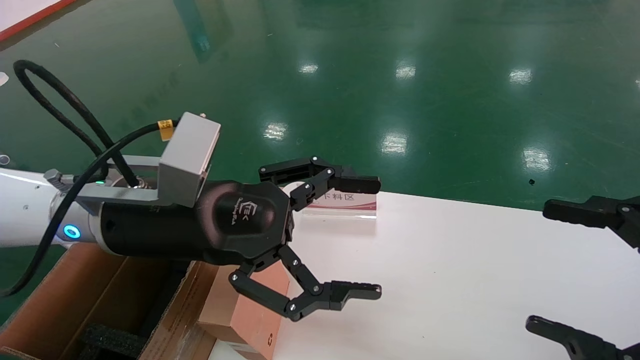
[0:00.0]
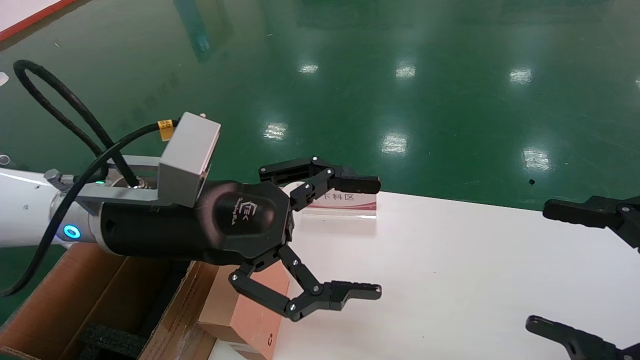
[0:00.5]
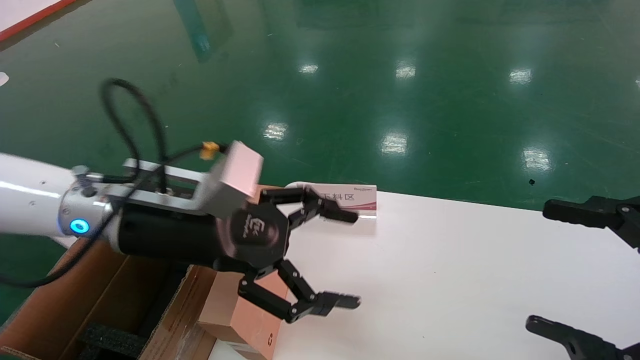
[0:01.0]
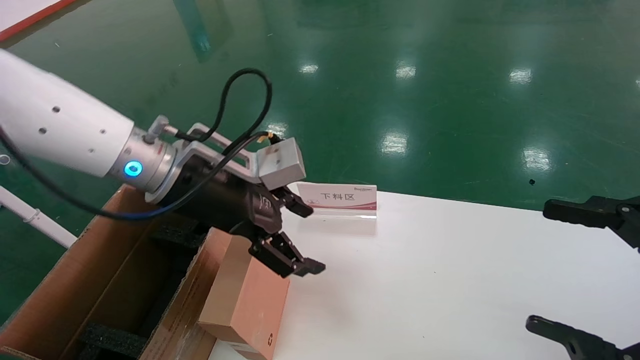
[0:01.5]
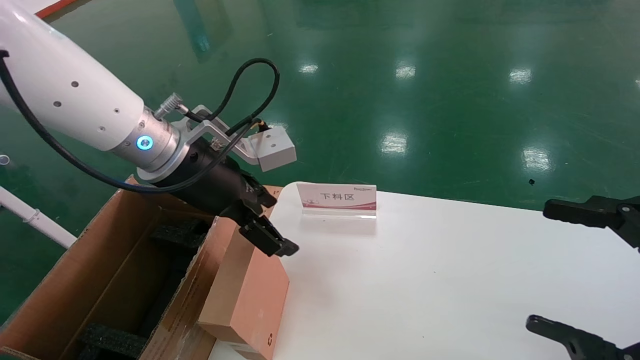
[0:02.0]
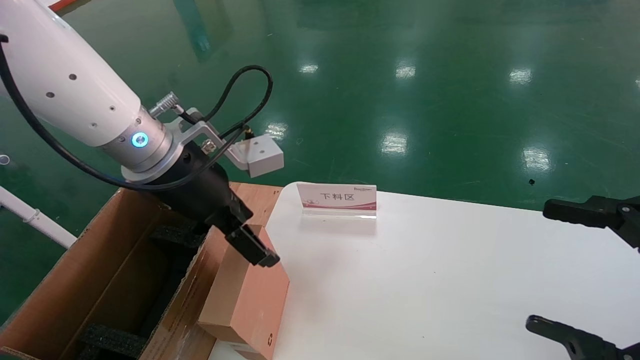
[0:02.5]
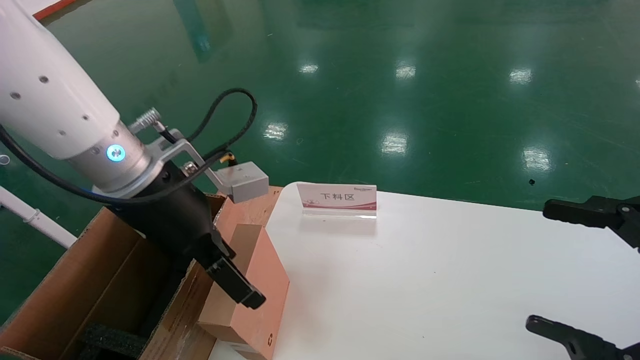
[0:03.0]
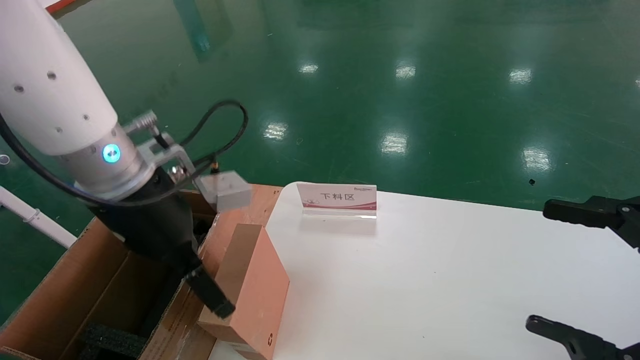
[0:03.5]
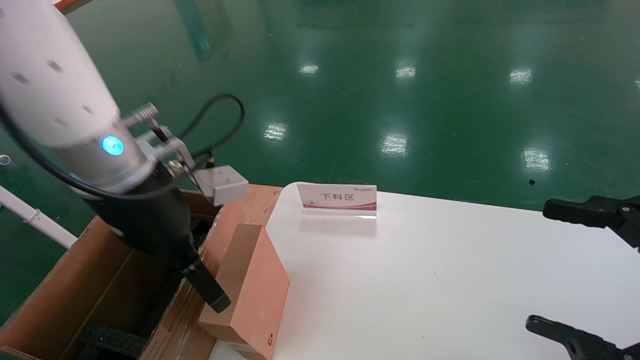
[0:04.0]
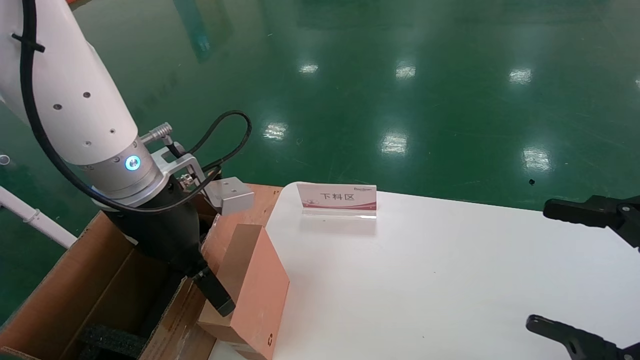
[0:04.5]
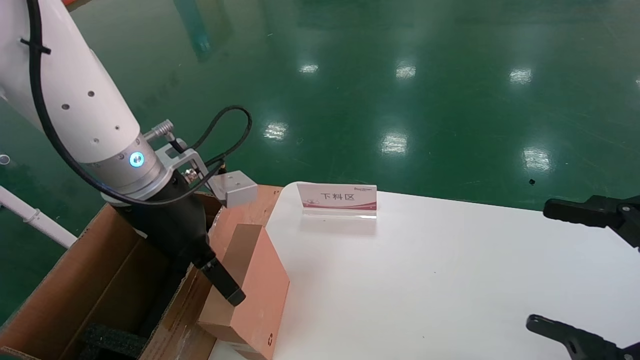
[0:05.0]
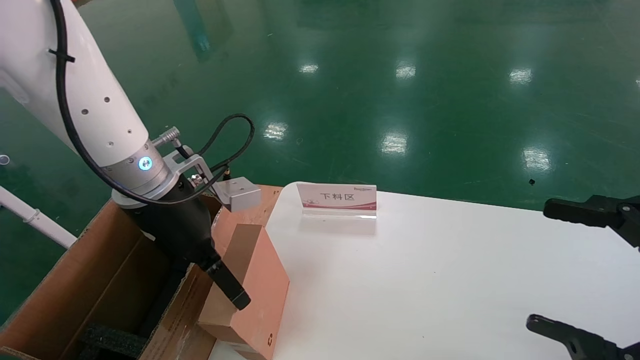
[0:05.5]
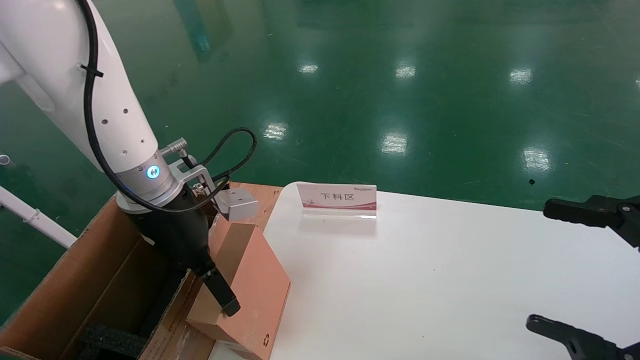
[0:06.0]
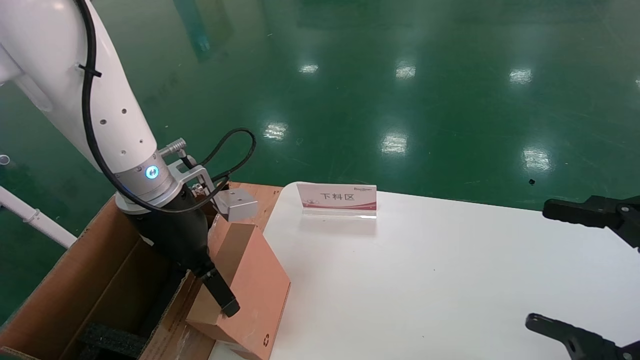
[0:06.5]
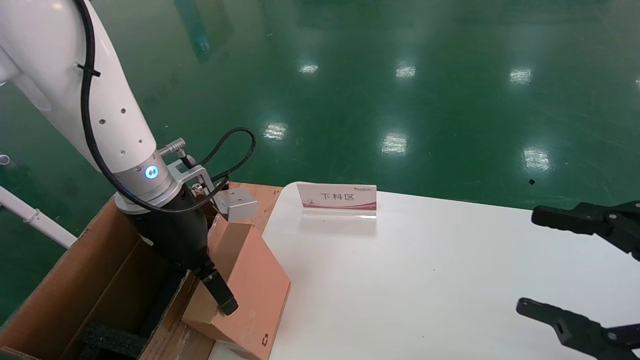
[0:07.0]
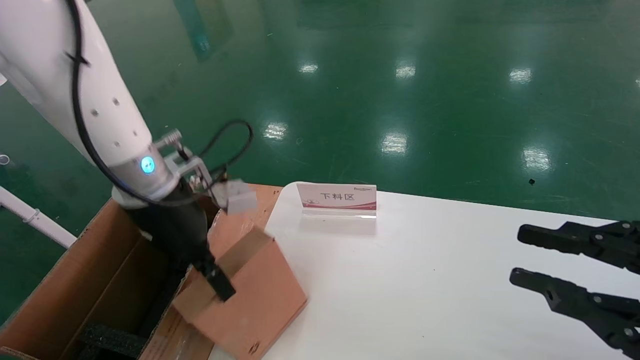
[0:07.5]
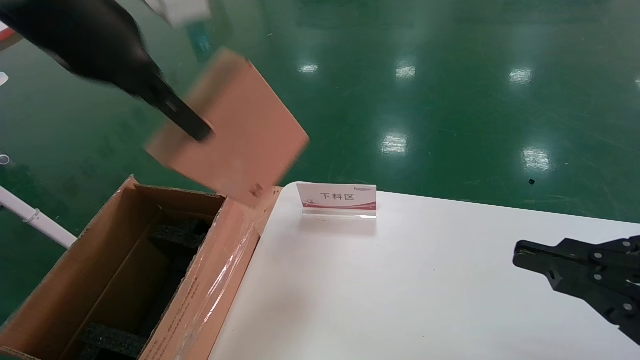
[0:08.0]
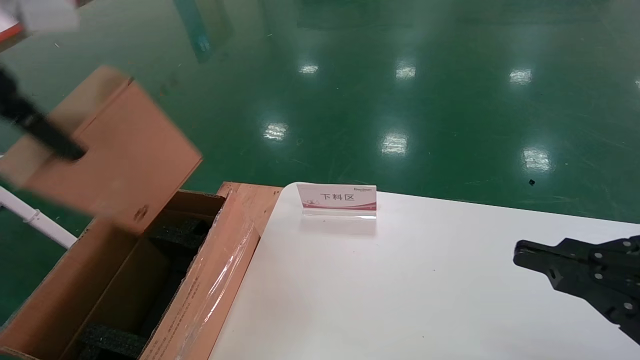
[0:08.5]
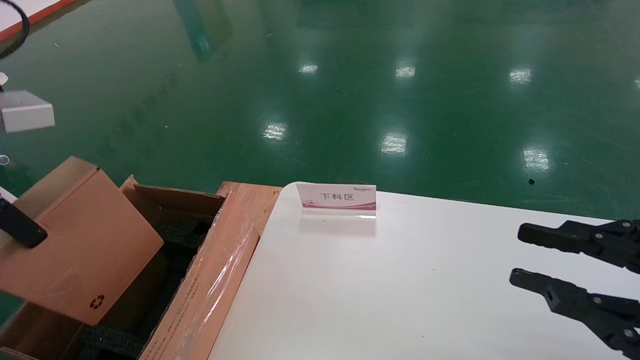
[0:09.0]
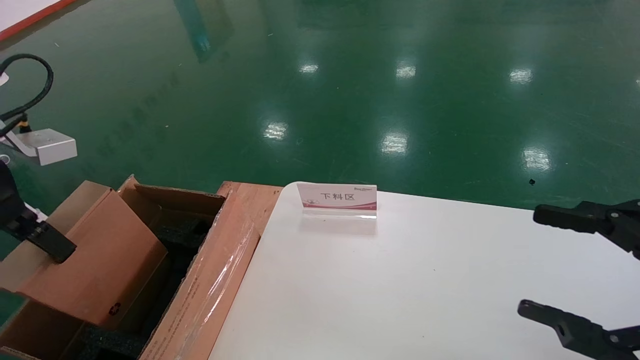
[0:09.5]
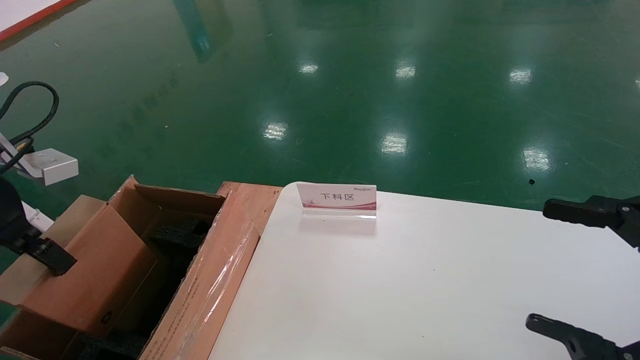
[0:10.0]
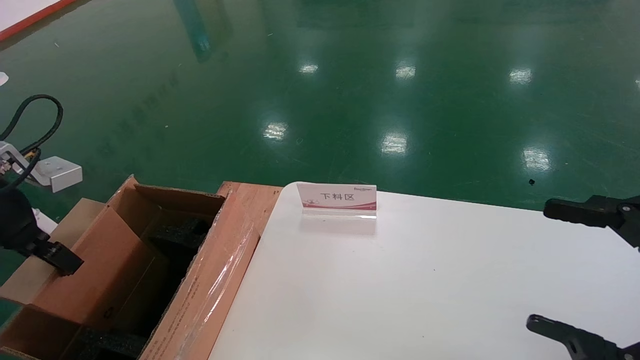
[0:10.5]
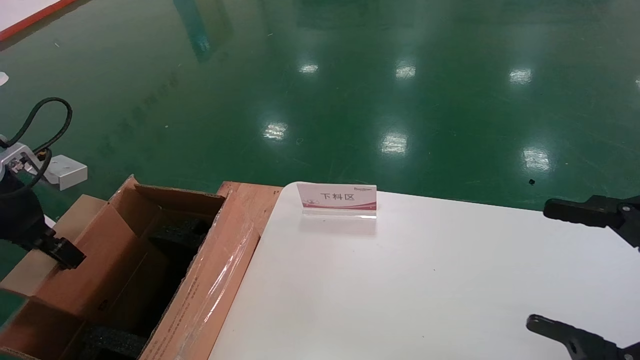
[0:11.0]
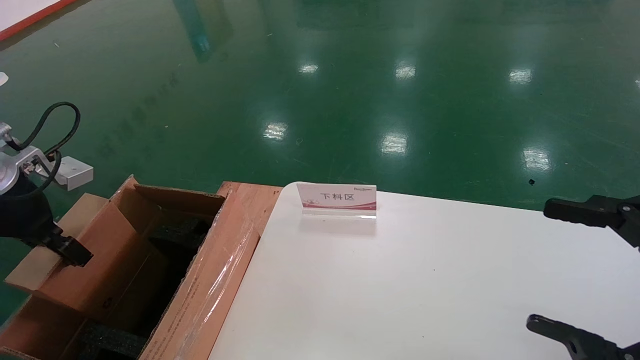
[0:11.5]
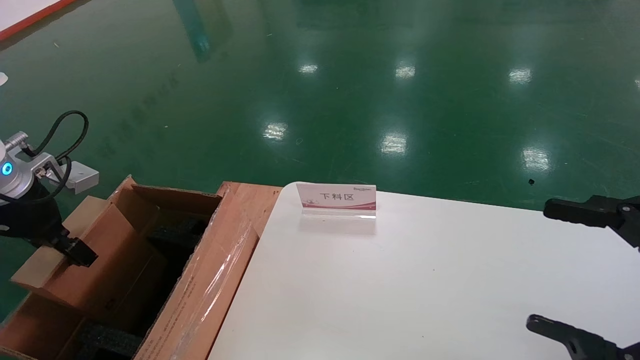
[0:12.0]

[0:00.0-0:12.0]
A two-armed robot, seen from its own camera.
Task of the whole recording: pick up the small cardboard box and load it into the large cardboard box.
Step, 0:01.0 to 0:07.5: Pick up the mouse and power cord box.
0:00.0 to 0:02.0: The left gripper moves forward, about 5 cm.
0:04.0 to 0:06.0: The left gripper ends up approximately 5 cm from where it was.
0:06.0 to 0:08.0: The right gripper closes up, while the left gripper moves upward, approximately 20 cm, and closes up.
0:08.0 to 0:10.0: The left gripper moves to the left and downward, about 20 cm, while the right gripper opens.
0:10.0 to 0:12.0: The left gripper moves forward and downward, approximately 10 cm.

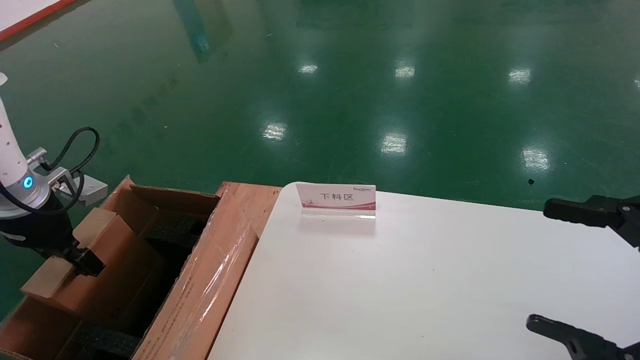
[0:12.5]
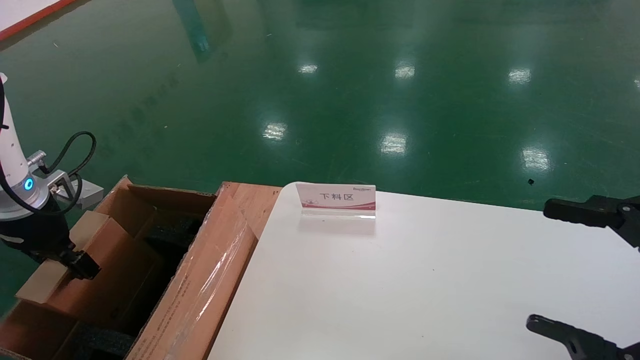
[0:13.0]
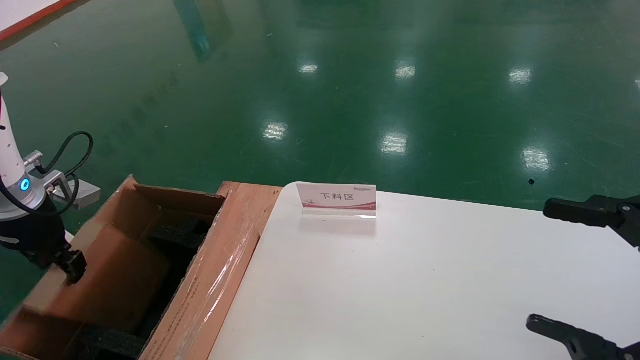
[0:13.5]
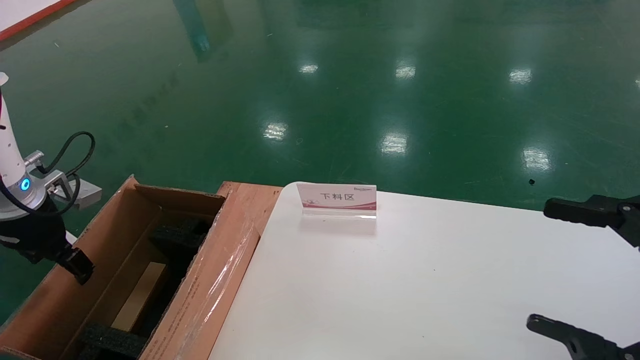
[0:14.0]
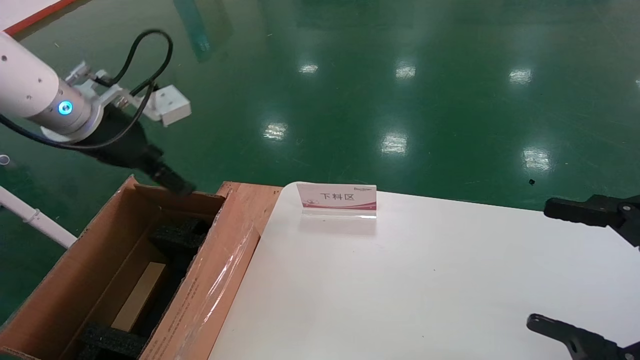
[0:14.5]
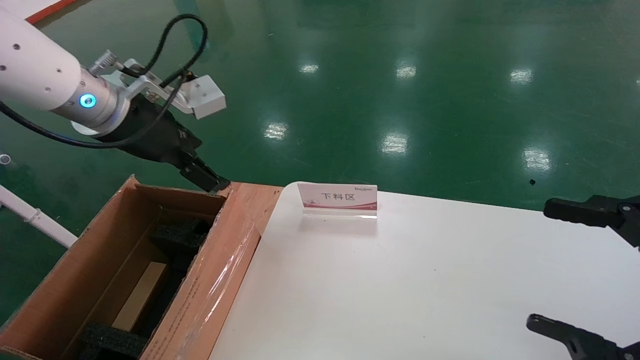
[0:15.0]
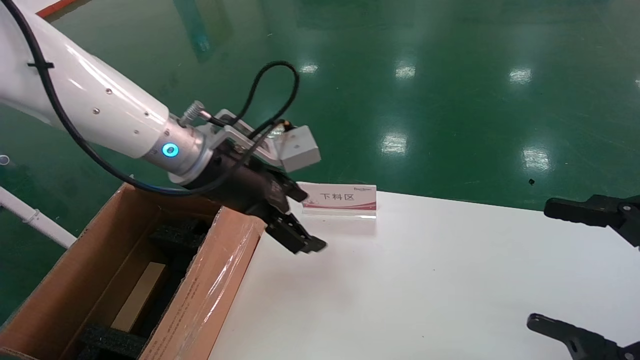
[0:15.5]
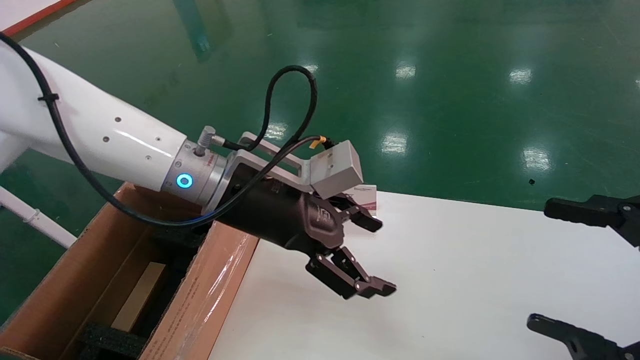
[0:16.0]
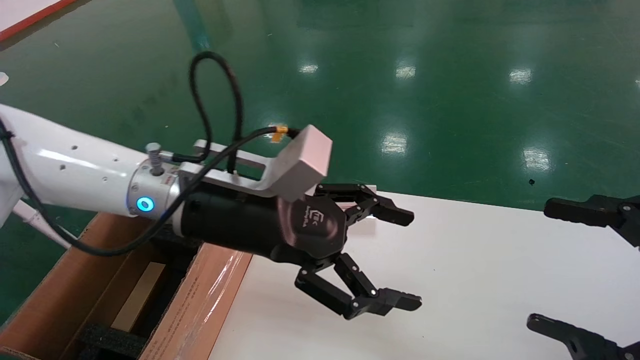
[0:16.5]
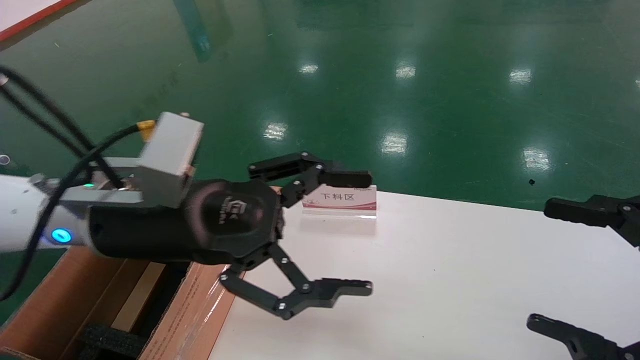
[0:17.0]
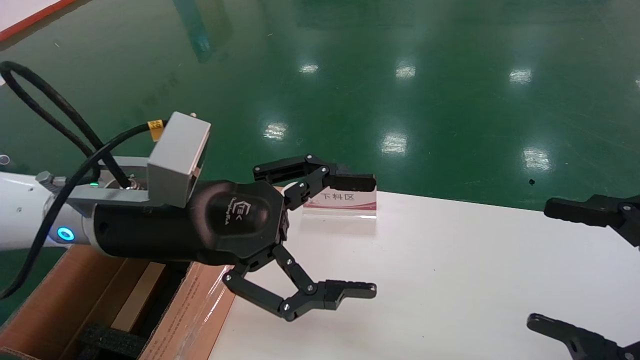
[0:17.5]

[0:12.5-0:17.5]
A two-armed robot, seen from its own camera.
Task of the whole recording: pick up the small cardboard box and load it into the large cardboard box.
0:12.5 to 0:15.0: The left gripper moves to the right and upward, roughly 20 cm, and opens up.
0:15.0 to 0:17.5: The left gripper travels backward, downward and to the right by some 15 cm.
